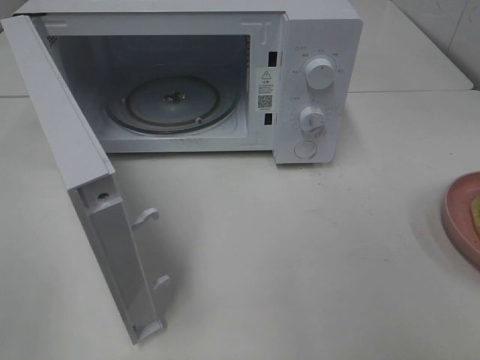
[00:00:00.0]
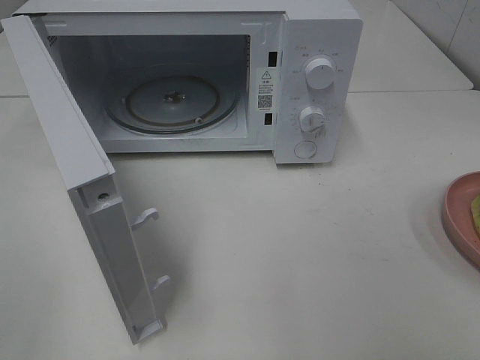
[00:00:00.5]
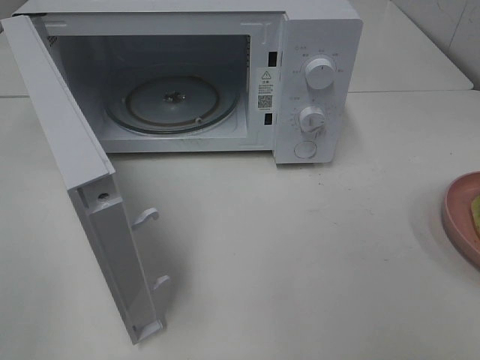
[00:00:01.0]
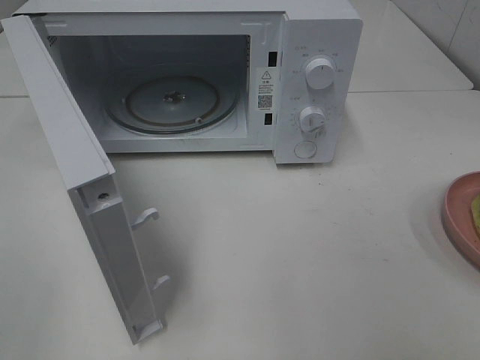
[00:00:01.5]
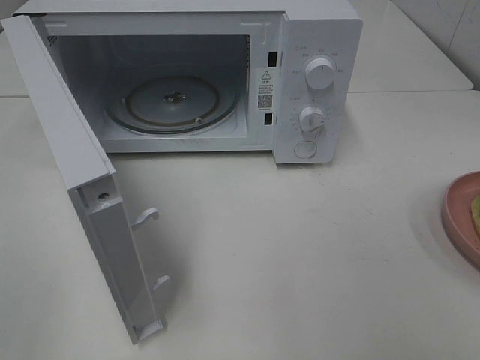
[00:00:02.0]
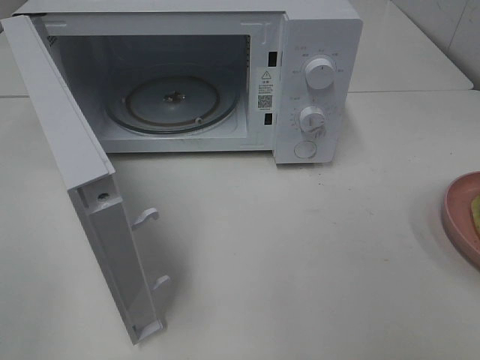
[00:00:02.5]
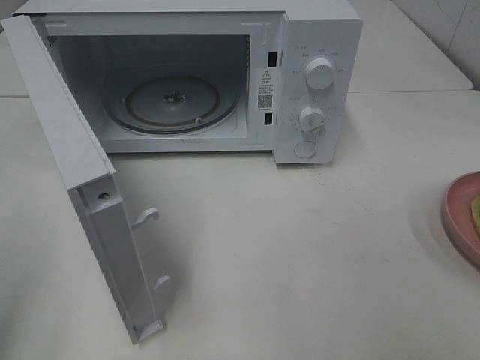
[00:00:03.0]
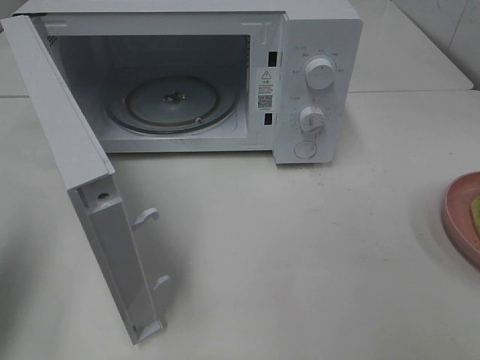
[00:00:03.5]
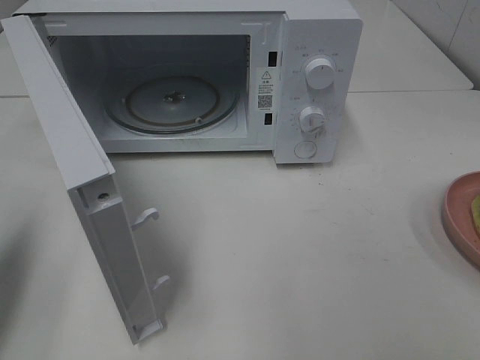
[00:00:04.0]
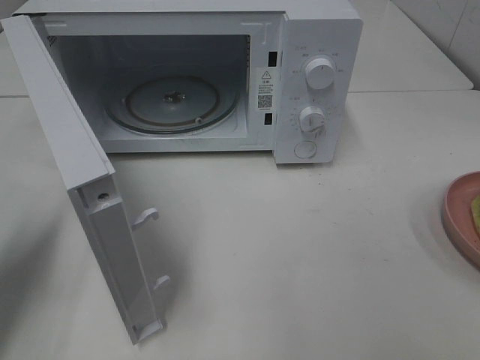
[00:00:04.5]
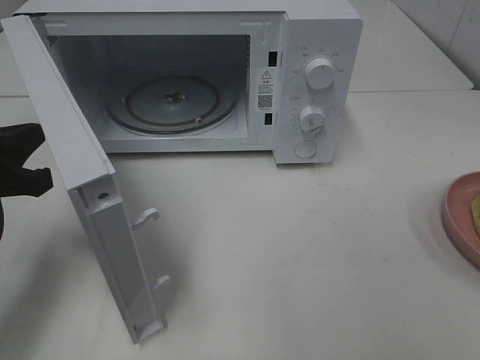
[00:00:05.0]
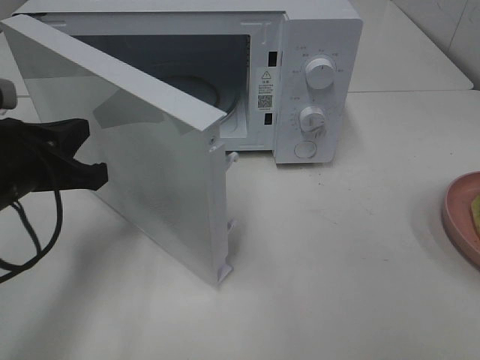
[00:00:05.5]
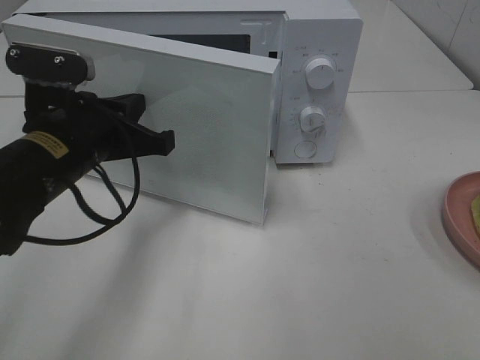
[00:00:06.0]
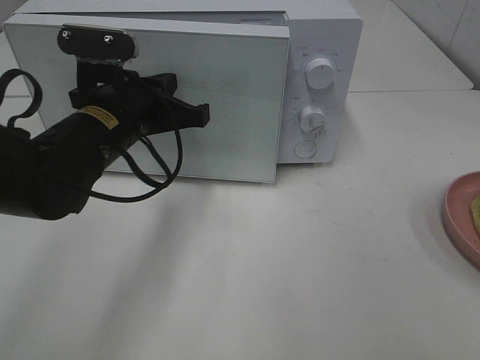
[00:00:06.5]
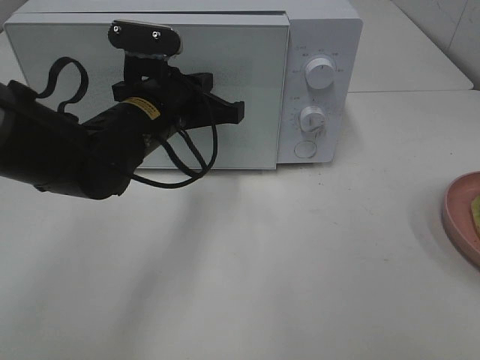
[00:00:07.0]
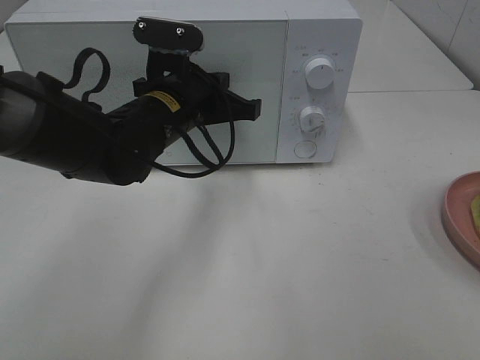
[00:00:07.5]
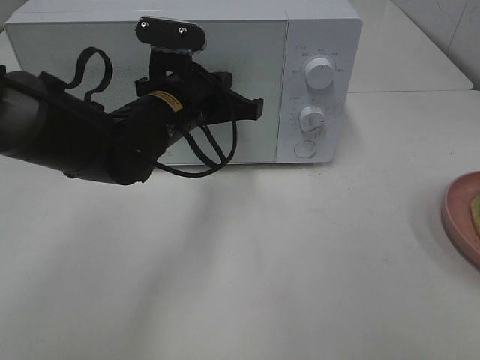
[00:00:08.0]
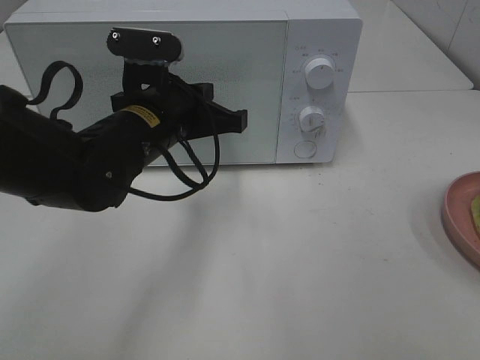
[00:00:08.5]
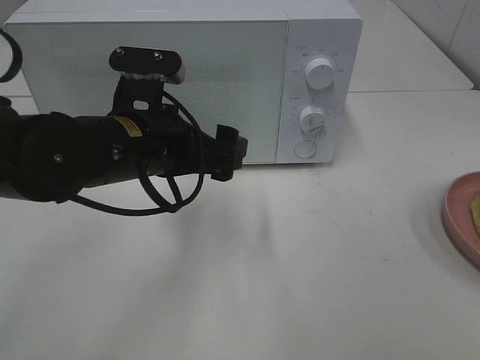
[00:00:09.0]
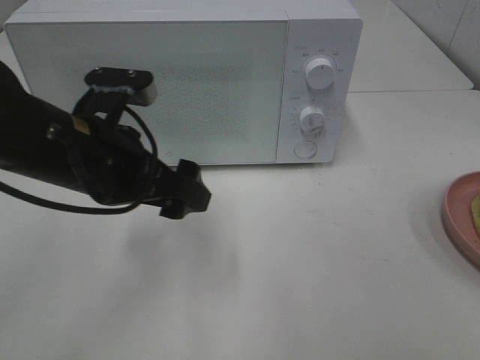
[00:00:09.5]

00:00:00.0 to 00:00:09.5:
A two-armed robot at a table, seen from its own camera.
Task of the whole recording: Heat Sandwich.
Step, 00:00:00.0 to 00:00:08.5: Left hand: close the microwave door.
00:00:02.0 to 00:00:04.0: The left gripper shifts approximately 15 cm forward, and closes.
00:00:04.0 to 00:00:05.5: The left gripper is displaced to the right, forward and downward by roughly 15 cm.
00:00:05.5 to 00:00:07.5: The left gripper shifts about 20 cm to the right and forward.
00:00:07.5 to 00:00:09.5: The left gripper moves backward and to the left, about 10 cm, and opens its fingers.

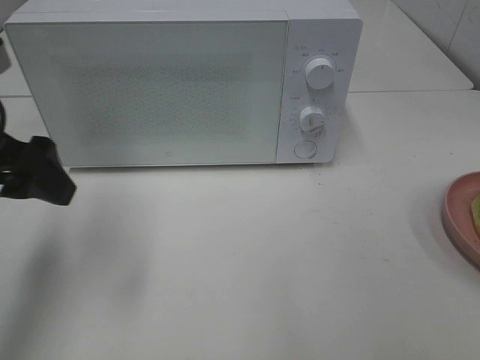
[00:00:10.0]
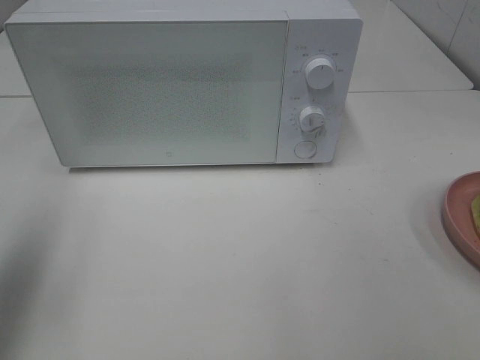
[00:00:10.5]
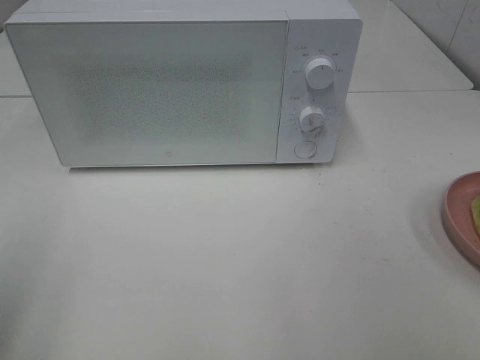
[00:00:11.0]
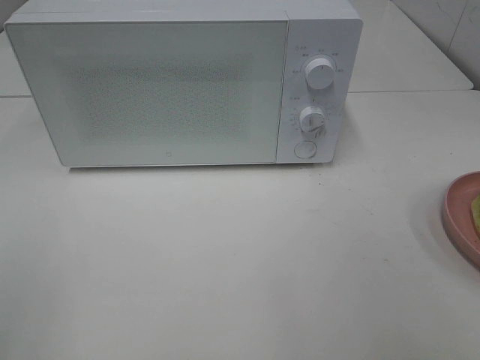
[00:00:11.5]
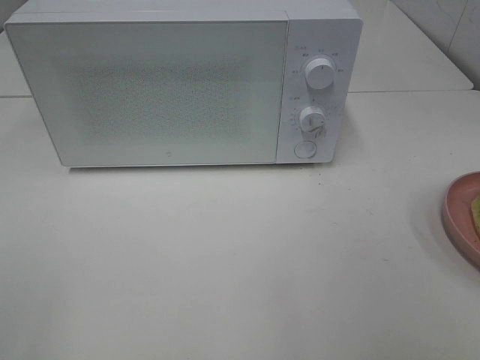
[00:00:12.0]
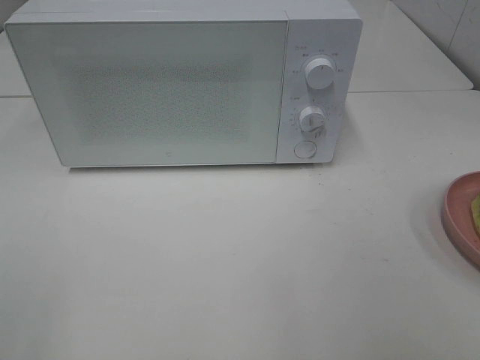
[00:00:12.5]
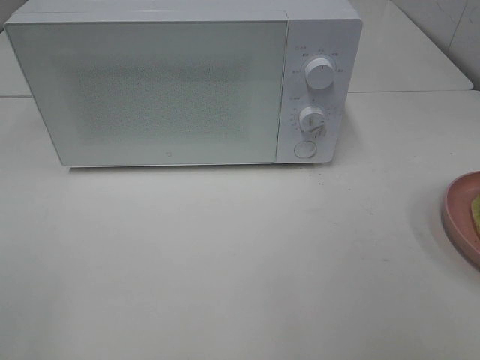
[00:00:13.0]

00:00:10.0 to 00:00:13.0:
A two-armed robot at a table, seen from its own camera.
Task of the whole recording: Heat Sandwich.
00:00:10.0 to 00:00:11.5: The left gripper moves backward, approximately 20 cm.
